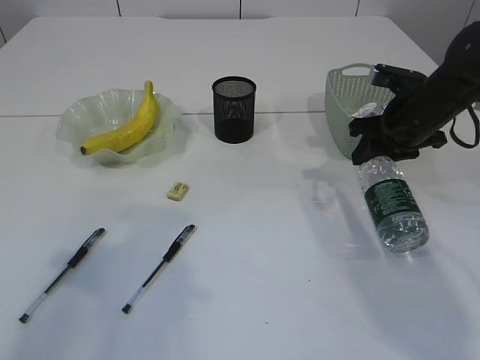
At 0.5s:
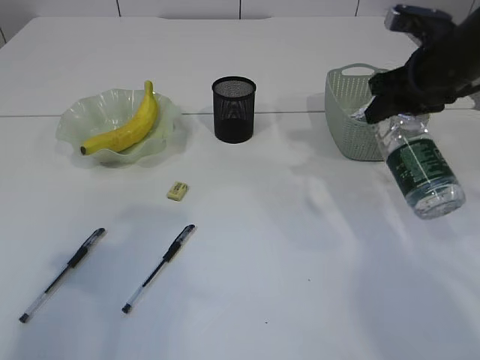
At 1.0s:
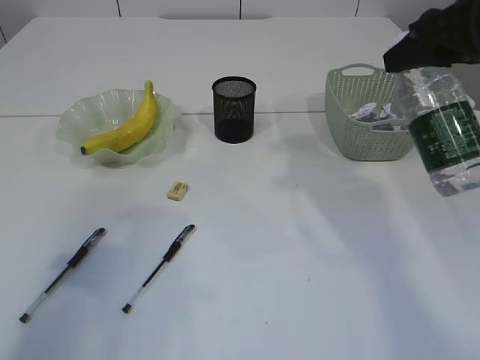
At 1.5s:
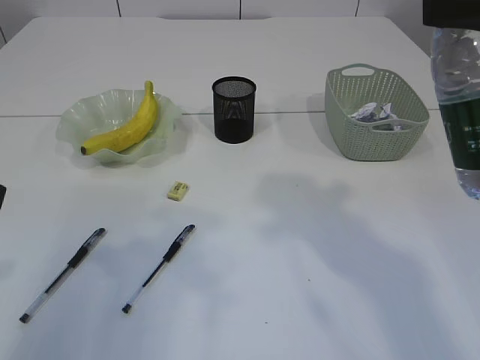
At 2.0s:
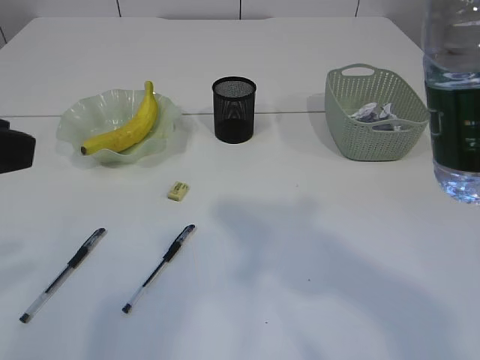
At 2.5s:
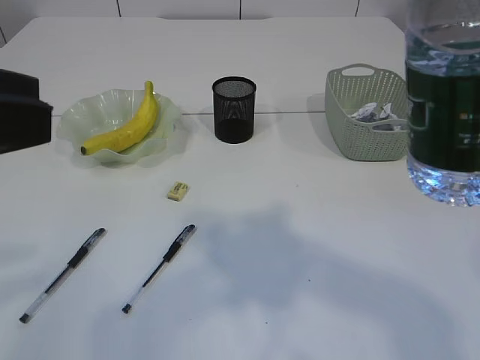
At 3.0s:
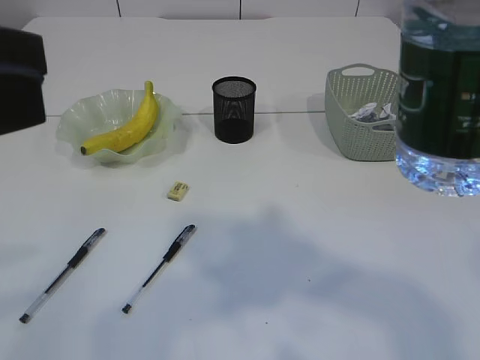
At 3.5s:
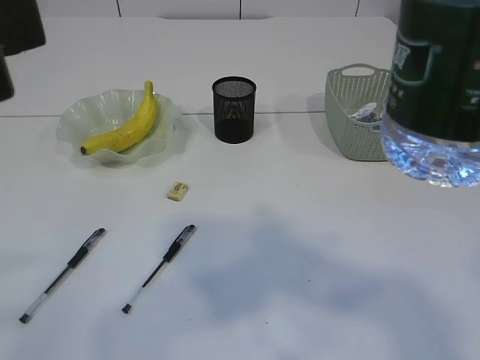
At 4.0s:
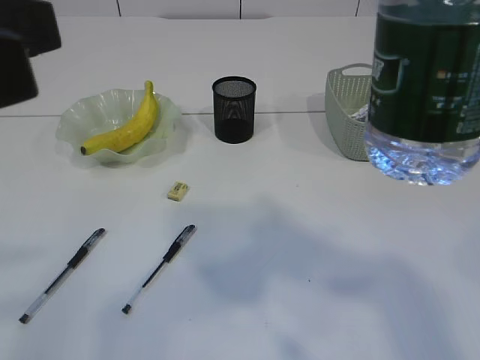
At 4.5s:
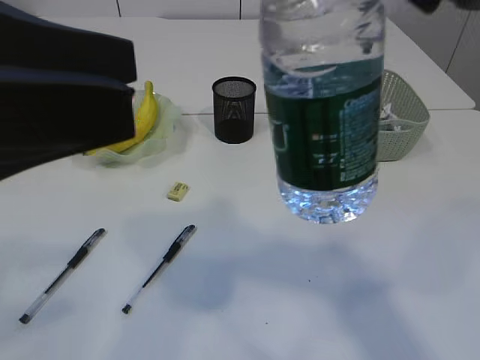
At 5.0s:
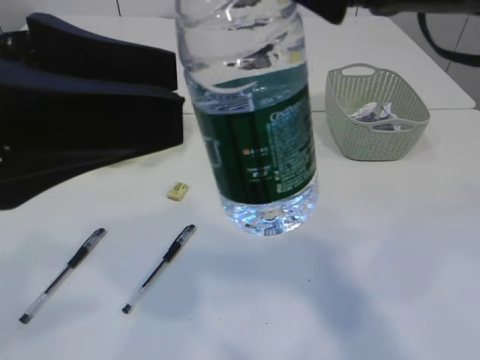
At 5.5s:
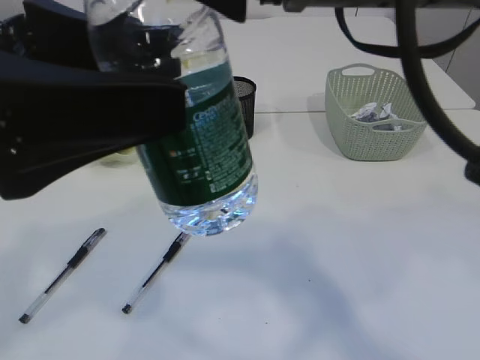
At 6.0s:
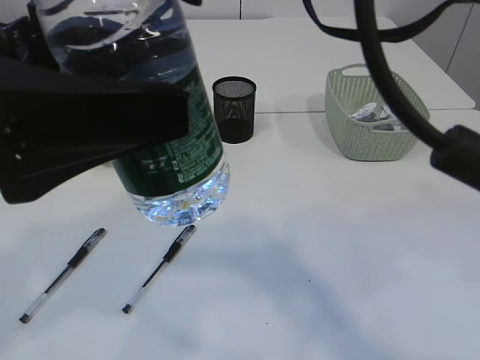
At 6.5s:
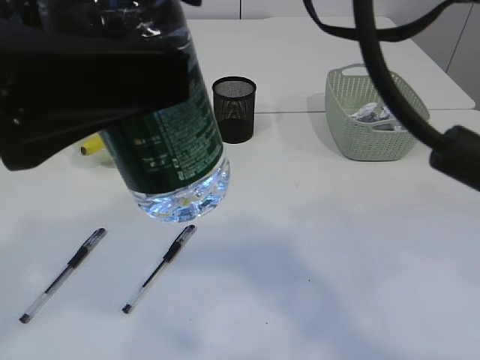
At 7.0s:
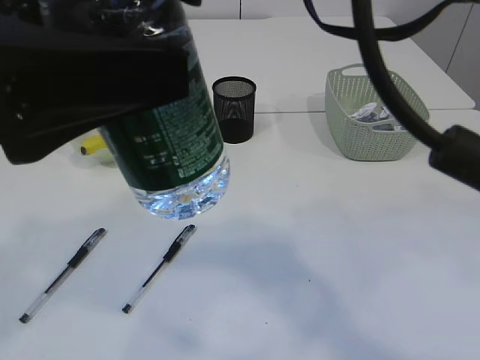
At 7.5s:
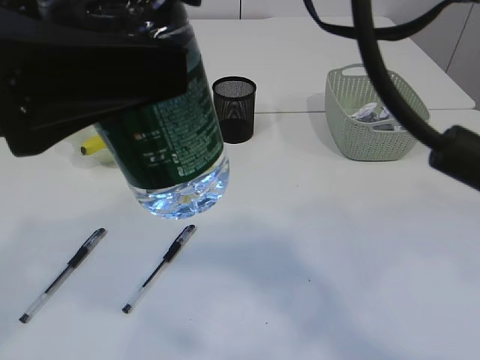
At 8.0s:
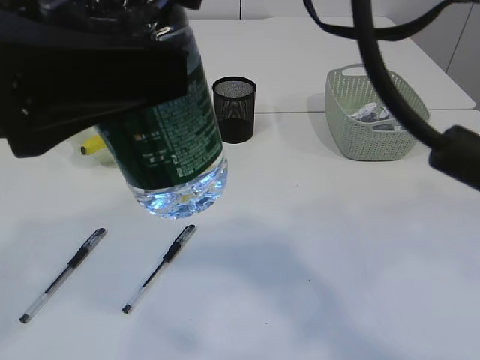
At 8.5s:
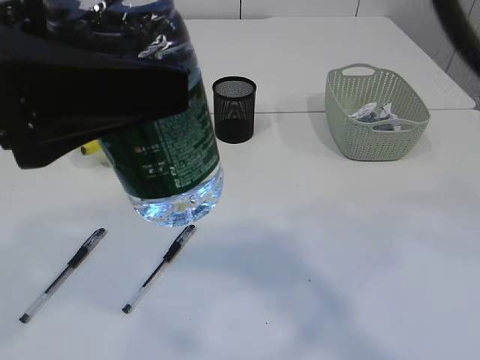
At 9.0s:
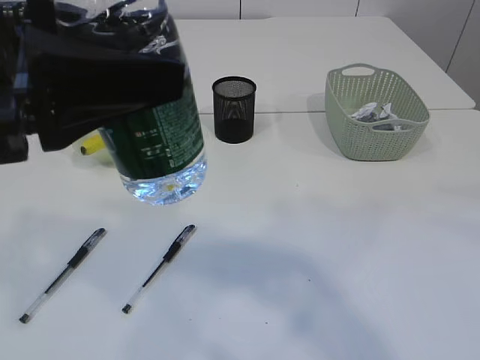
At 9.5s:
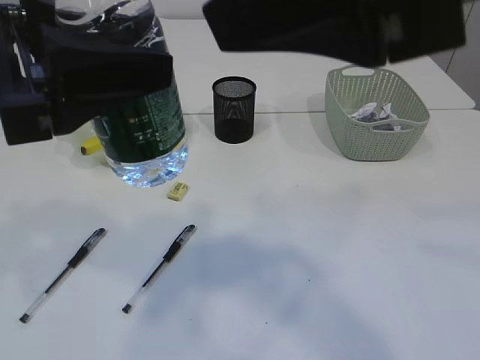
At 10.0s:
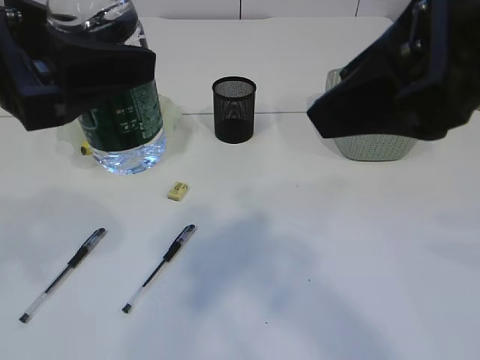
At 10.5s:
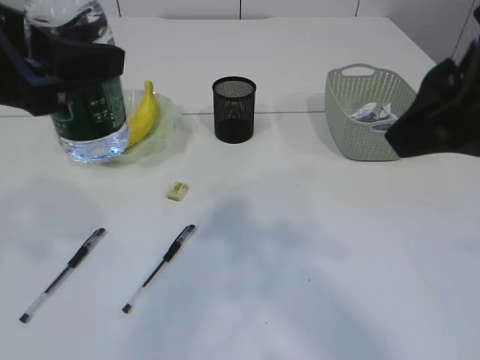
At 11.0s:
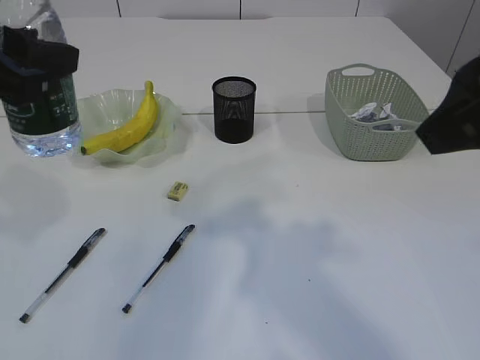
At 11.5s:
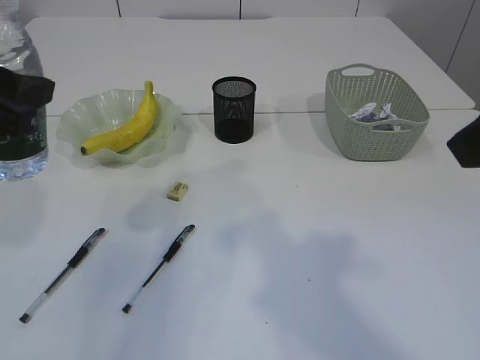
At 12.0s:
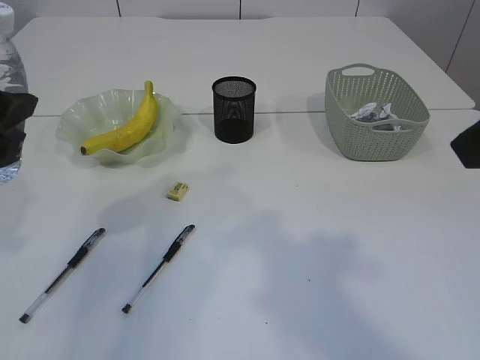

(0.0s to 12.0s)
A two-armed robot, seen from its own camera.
Step, 1.0s - 9.0s: transfer the bottle to the left arm.
0.0s - 2.0s: The left gripper ends up about 5 cm from where it was. Meanwhile the right gripper is displaced backward and upward by approximately 35 cm.
2.0s - 4.0s: The left gripper moves about 5 cm.
4.0s - 6.0s: The left gripper is displaced to the right by about 5 cm. The right gripper moves to the left, about 15 cm.
6.0s - 8.0s: The two grippers keep their place.
8.0s - 10.0s: The right gripper moves to the right, some 10 cm.
10.0s - 12.0s: The left gripper goes roughly 5 cm to the left, while the right gripper is displaced to the right by some 5 cm.

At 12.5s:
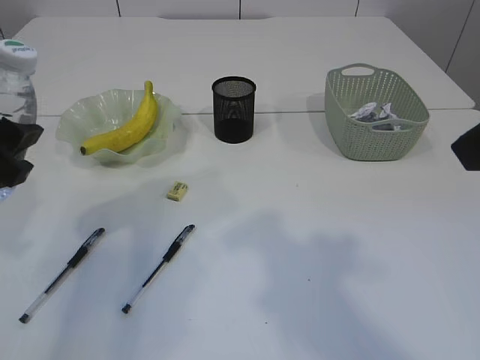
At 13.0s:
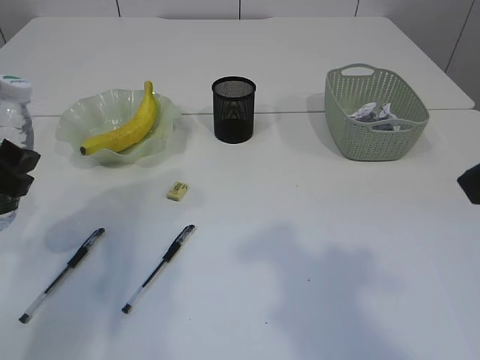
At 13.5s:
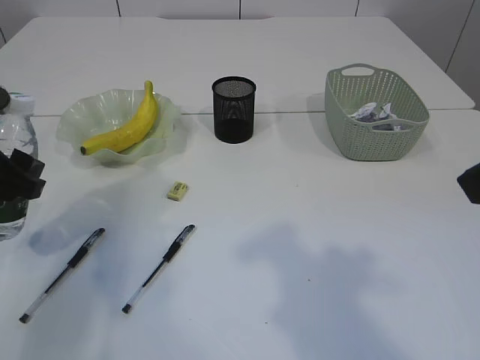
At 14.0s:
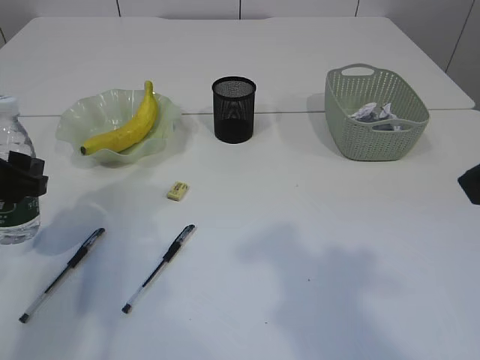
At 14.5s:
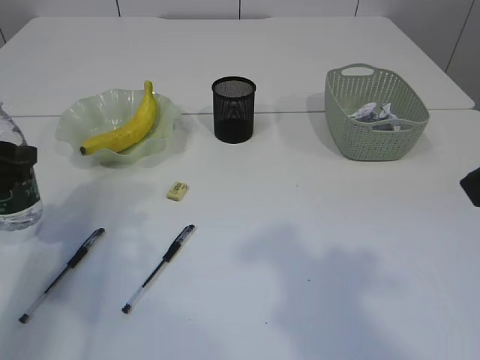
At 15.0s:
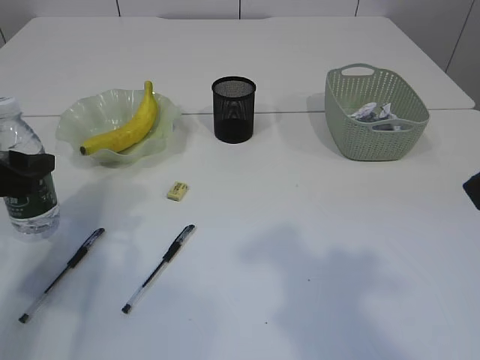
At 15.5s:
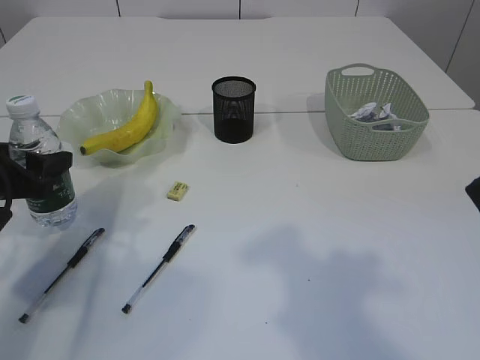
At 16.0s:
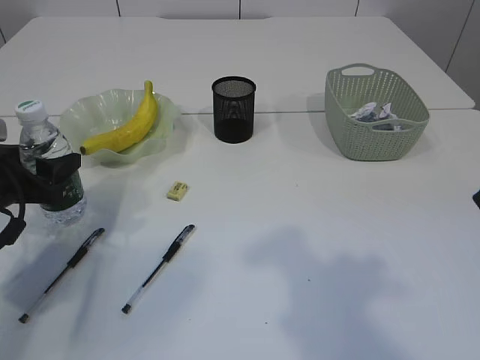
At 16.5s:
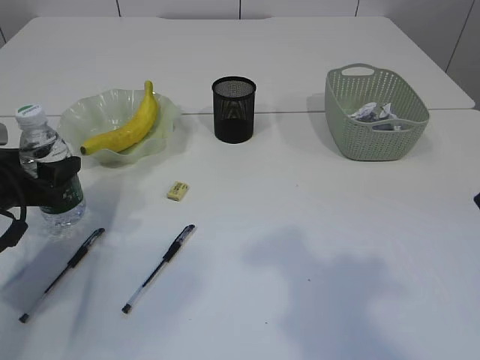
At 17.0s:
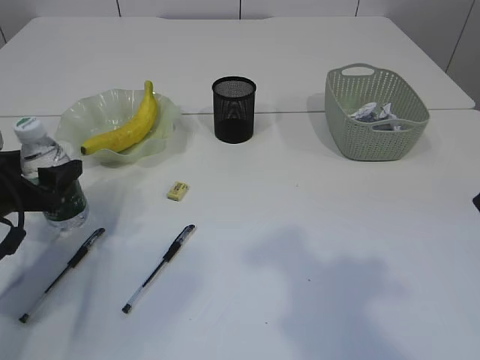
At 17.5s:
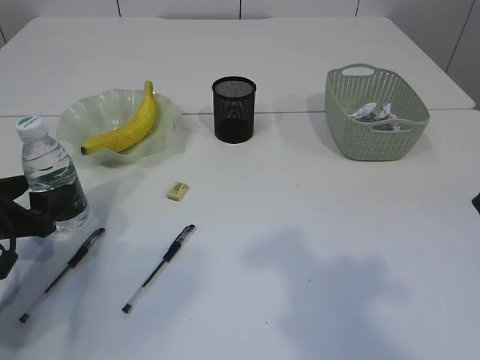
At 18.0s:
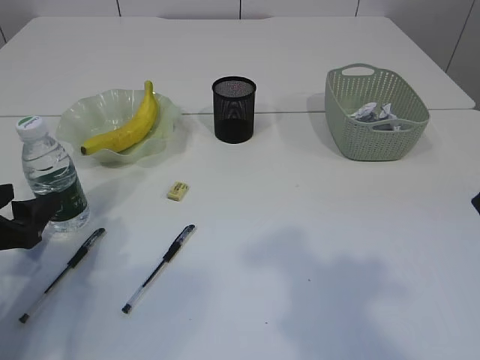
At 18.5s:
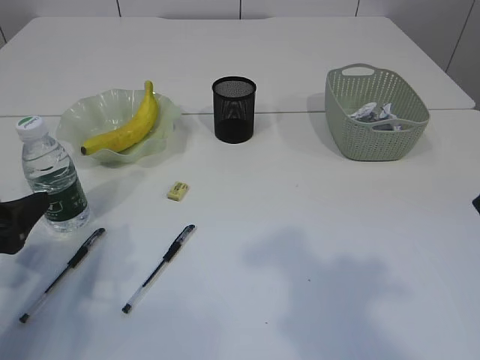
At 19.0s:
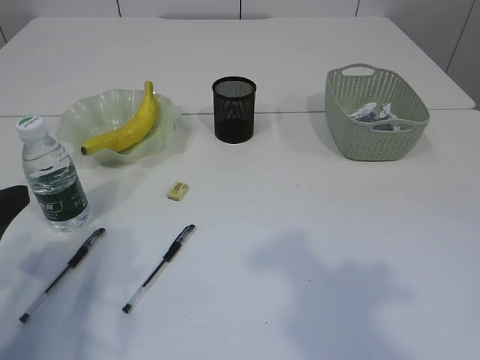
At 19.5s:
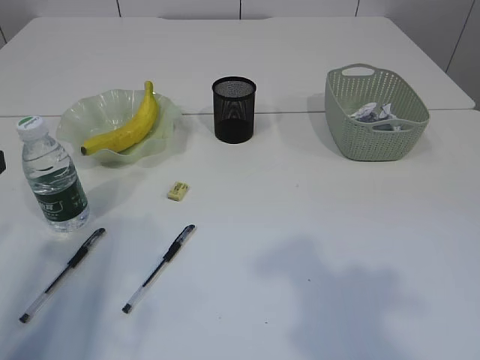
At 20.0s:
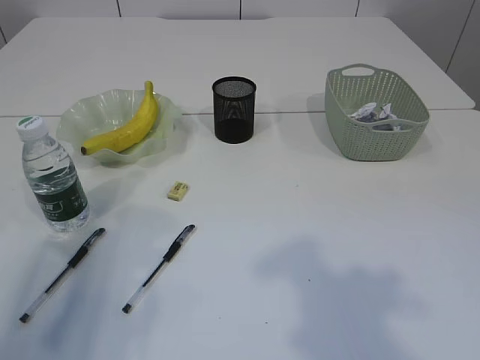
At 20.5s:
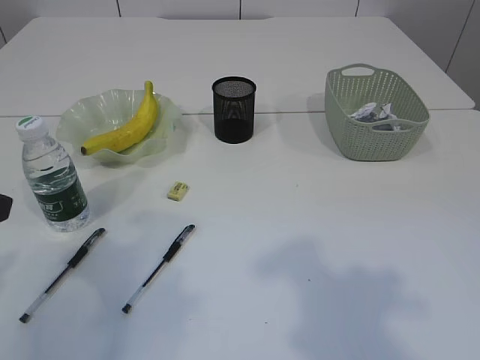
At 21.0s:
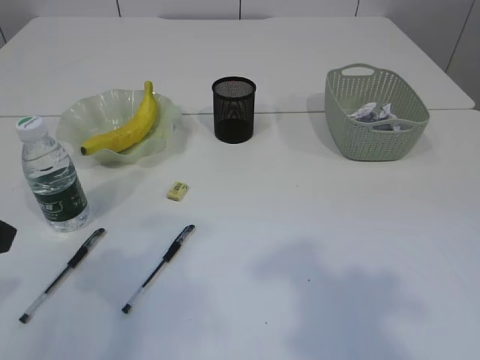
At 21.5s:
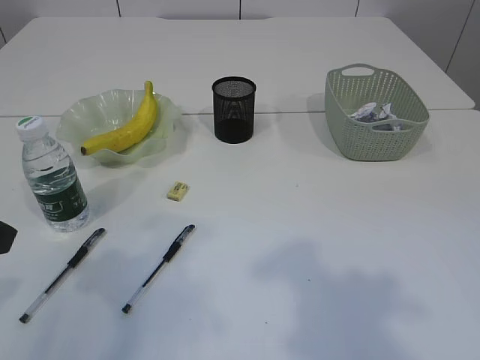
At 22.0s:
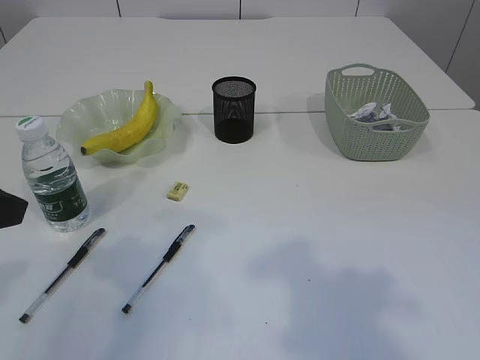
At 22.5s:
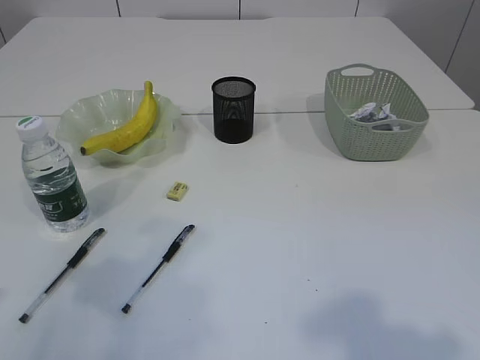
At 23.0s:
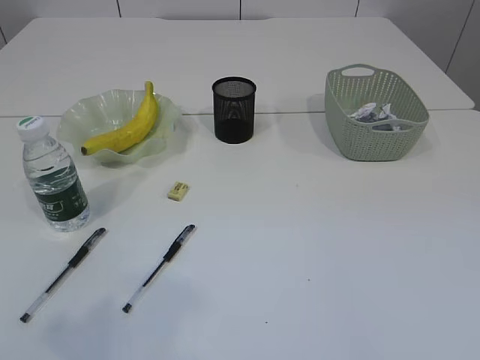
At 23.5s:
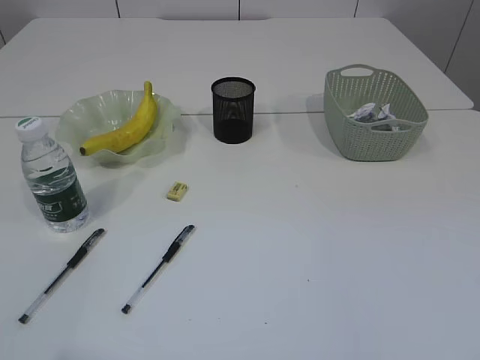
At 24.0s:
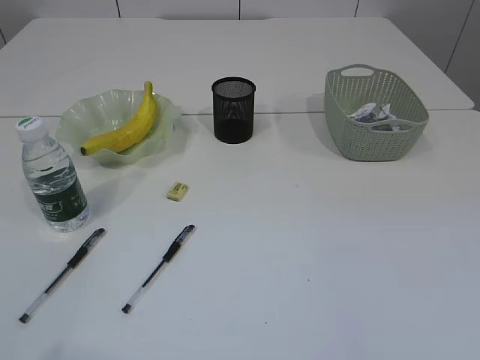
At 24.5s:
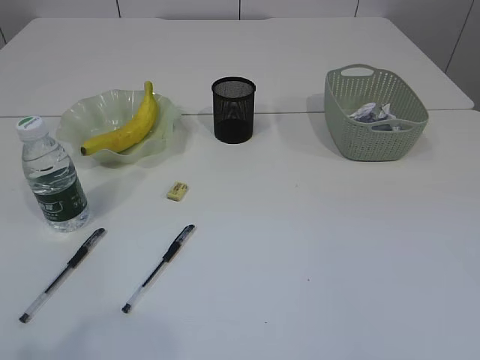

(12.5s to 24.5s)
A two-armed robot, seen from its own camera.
Step, 12.5s - 18.0s: Place the bottle.
12.5s - 14.5s: The left gripper shifts some 10 cm downward and to the left.
14.5s - 16.5s: The left gripper is displaced downward by approximately 5 cm.
16.5s - 18.5s: The left gripper heads backward, covering approximately 10 cm.
18.5s - 20.5s: The left gripper travels upward by roughly 10 cm.

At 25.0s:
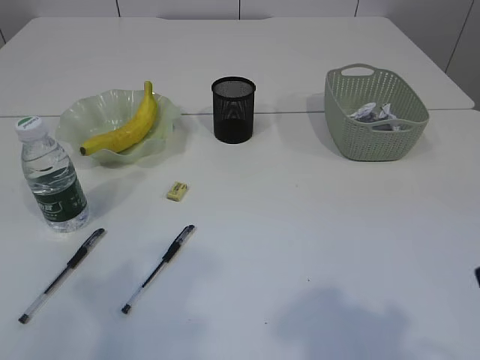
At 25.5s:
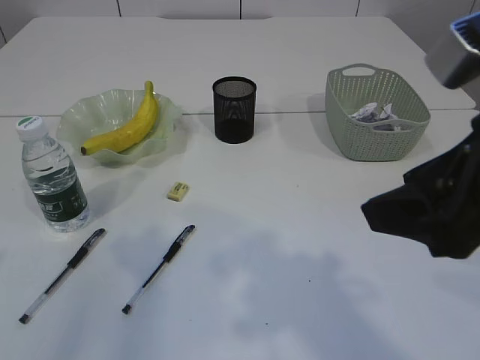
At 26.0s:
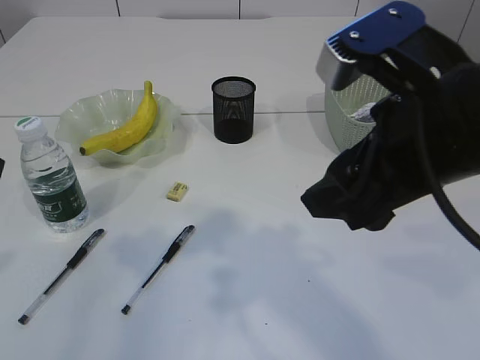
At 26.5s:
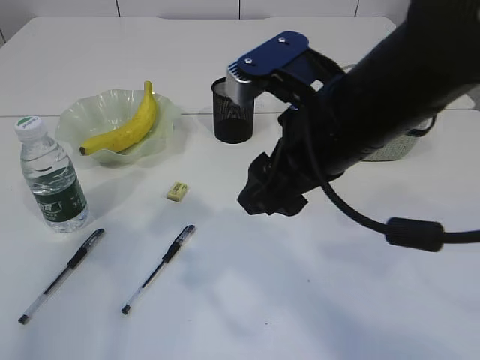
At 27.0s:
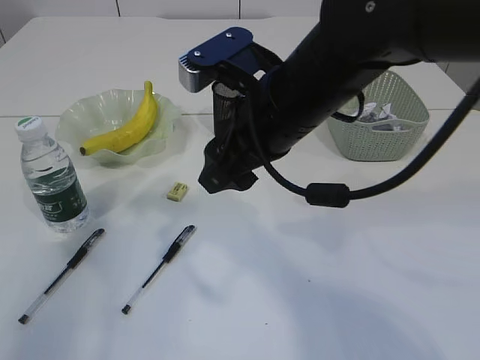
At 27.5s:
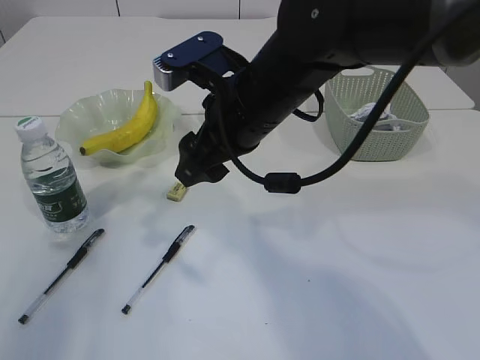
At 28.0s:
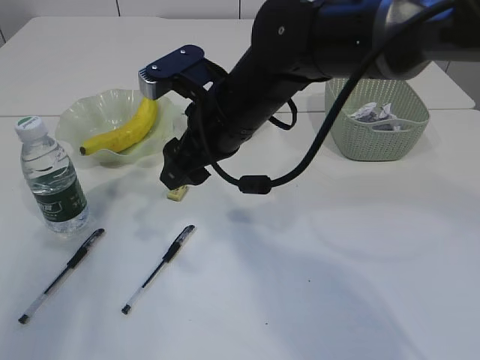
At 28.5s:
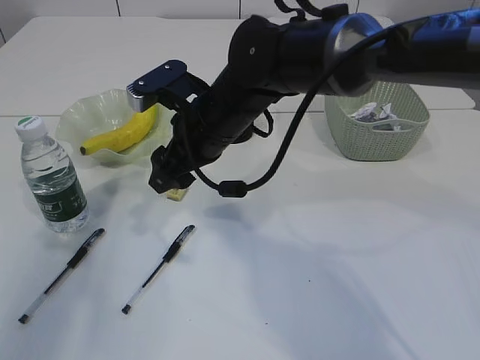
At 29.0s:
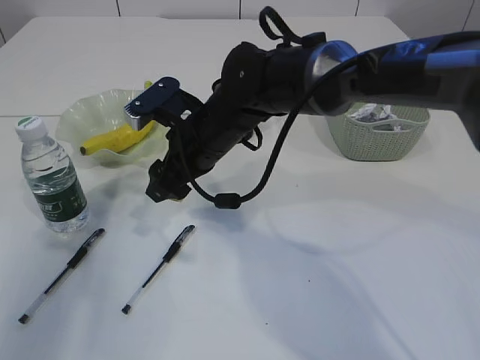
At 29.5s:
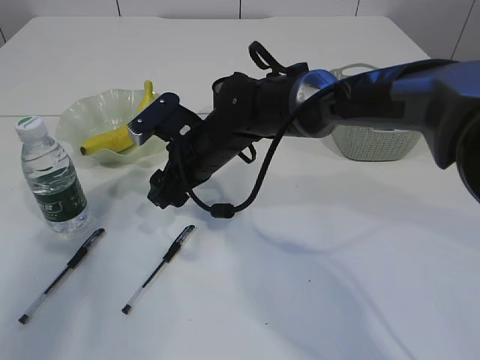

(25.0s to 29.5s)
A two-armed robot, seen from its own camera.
25.0s - 27.0s: The right gripper is displaced forward and to the left by about 30 cm. Meanwhile the left gripper is displaced forward by approximately 10 cm.
27.0s - 29.5s: The right gripper heads downward, forward and to the left, covering some 15 cm. Meanwhile the left gripper ends up some 5 cm from where it was.
